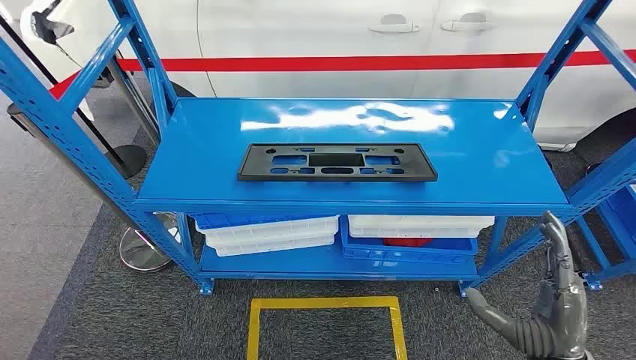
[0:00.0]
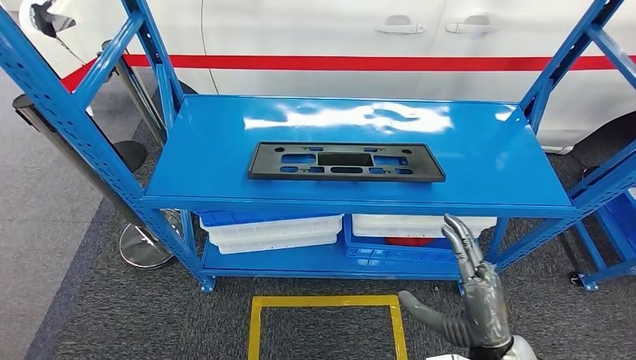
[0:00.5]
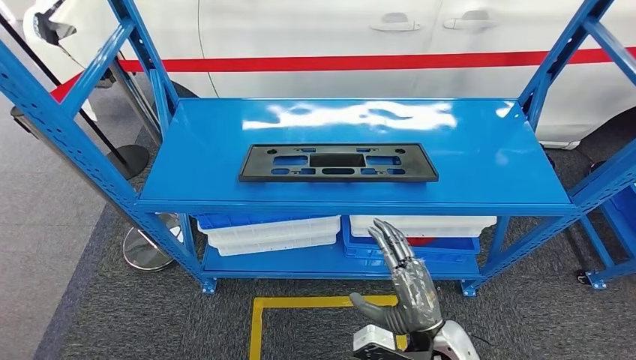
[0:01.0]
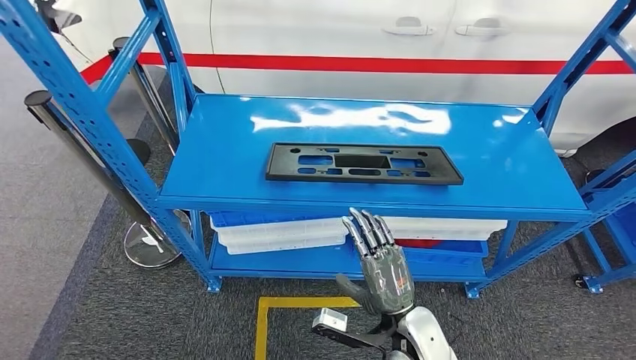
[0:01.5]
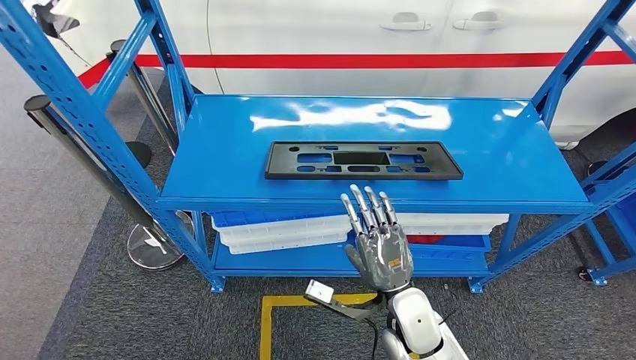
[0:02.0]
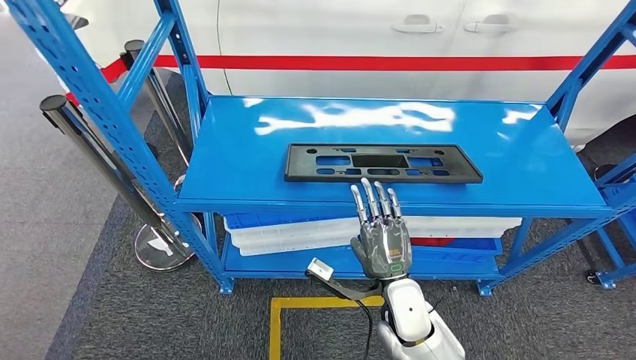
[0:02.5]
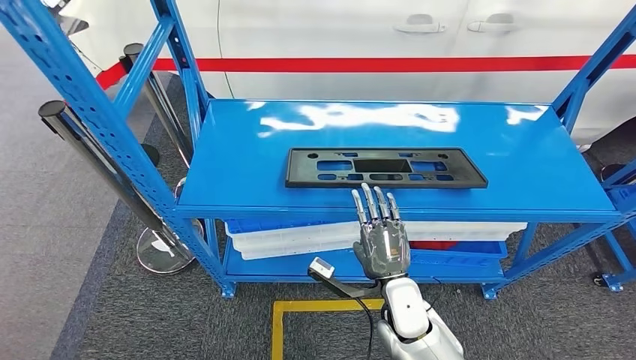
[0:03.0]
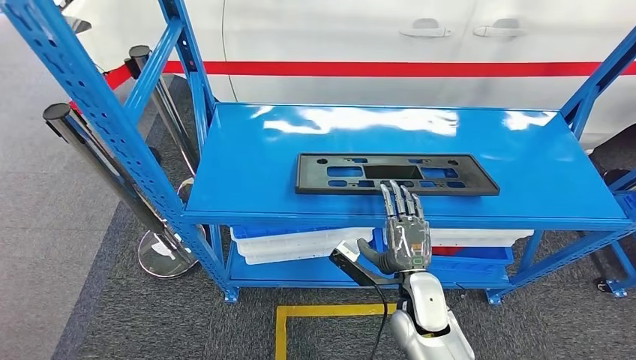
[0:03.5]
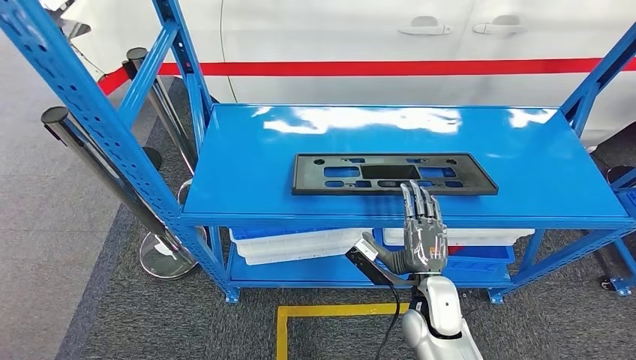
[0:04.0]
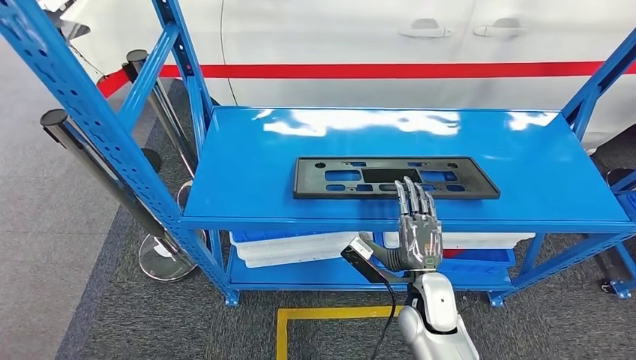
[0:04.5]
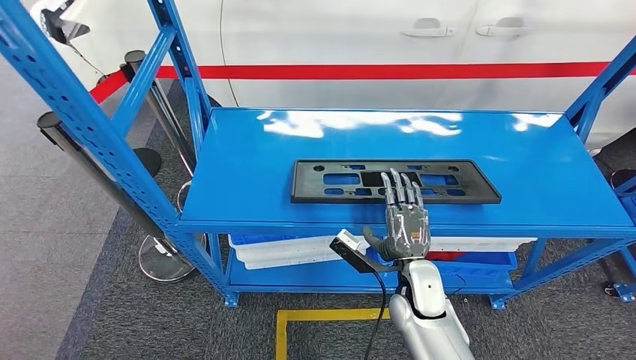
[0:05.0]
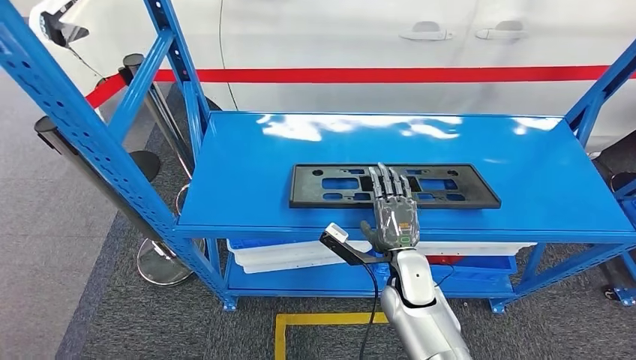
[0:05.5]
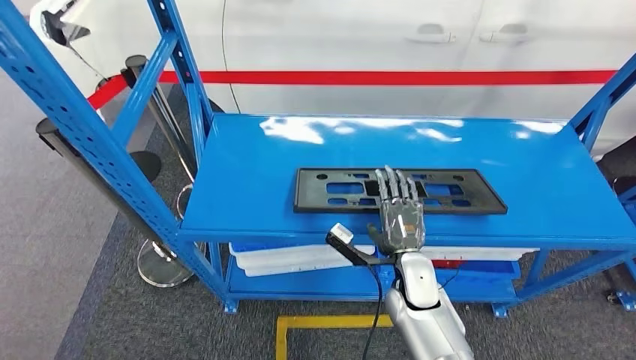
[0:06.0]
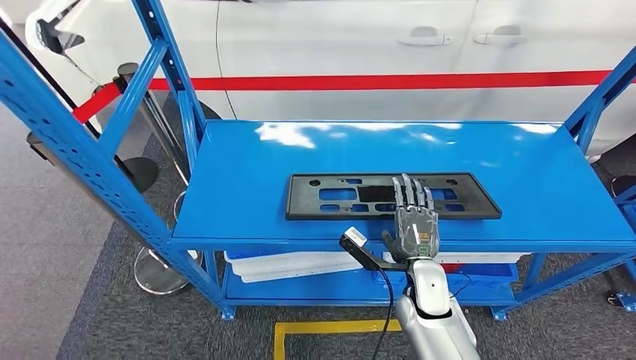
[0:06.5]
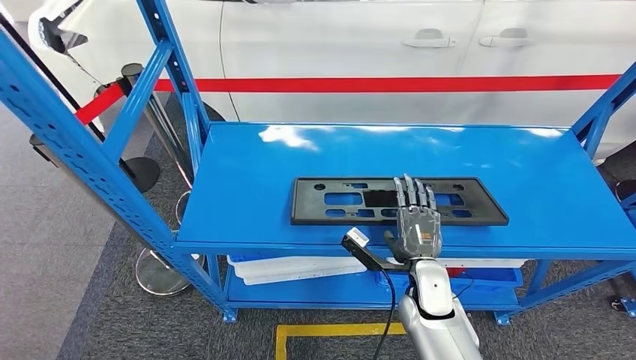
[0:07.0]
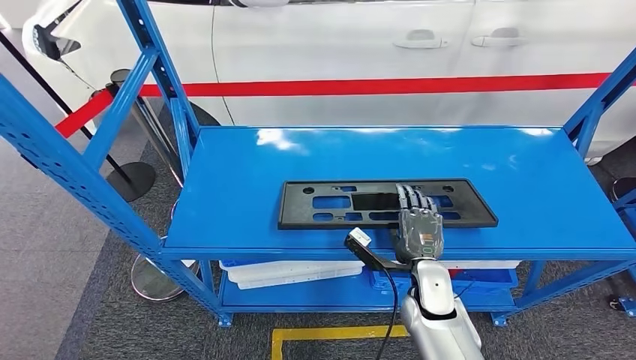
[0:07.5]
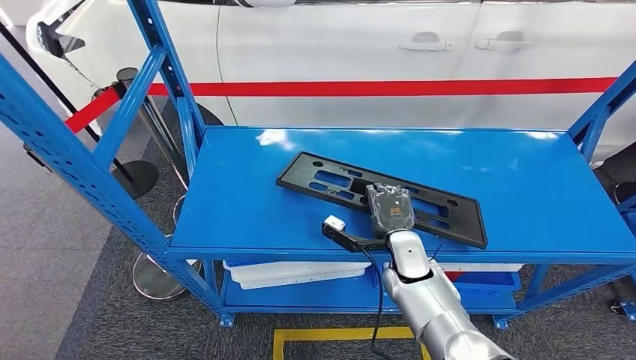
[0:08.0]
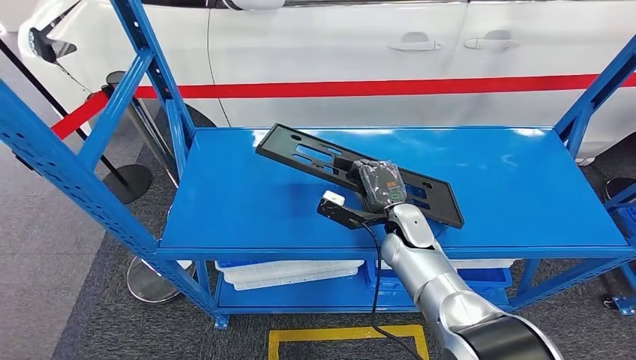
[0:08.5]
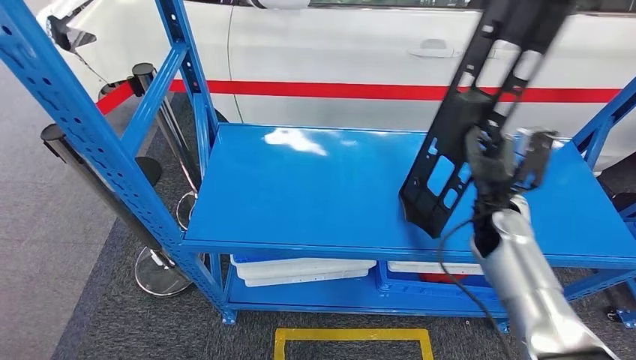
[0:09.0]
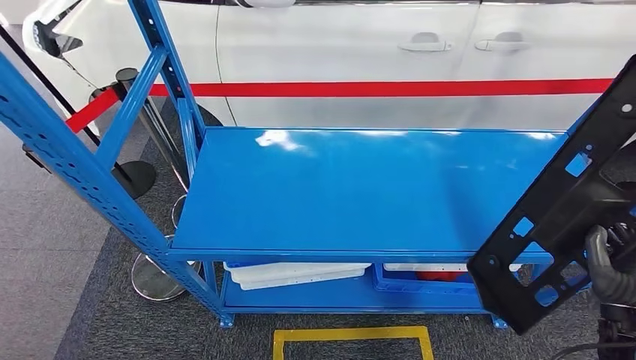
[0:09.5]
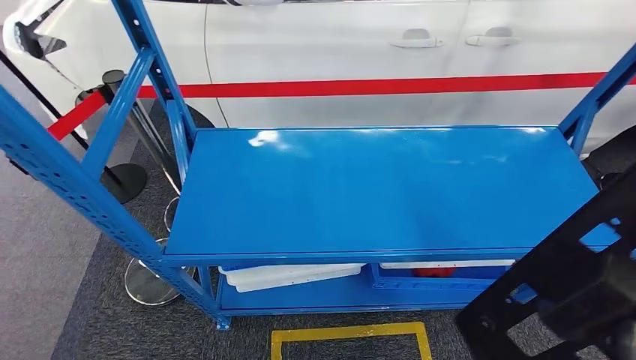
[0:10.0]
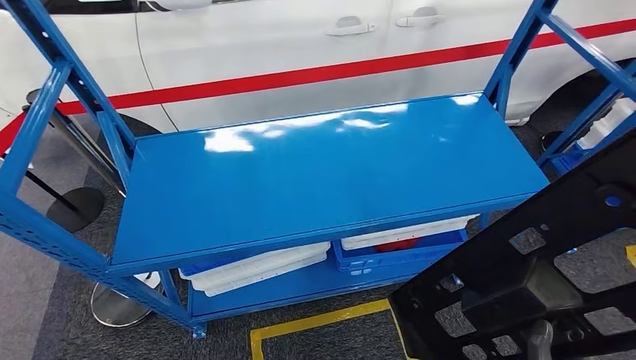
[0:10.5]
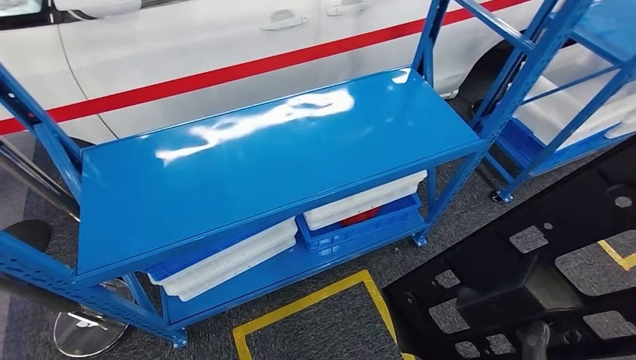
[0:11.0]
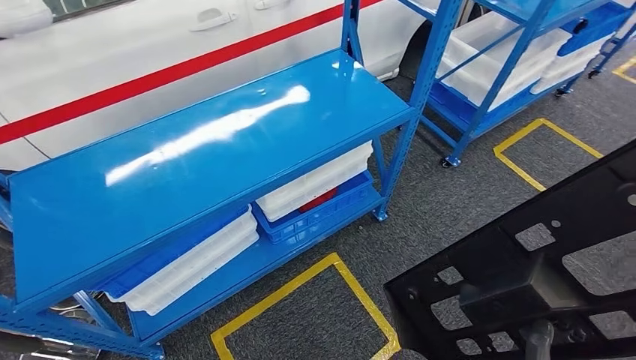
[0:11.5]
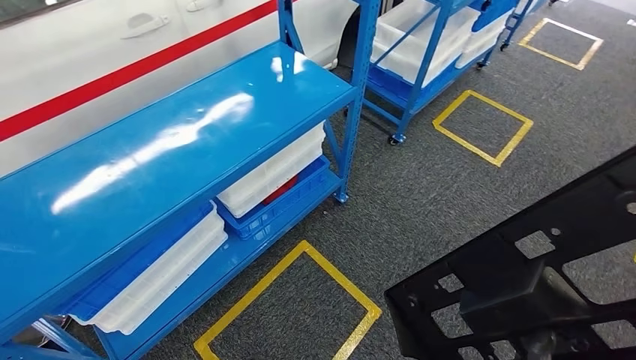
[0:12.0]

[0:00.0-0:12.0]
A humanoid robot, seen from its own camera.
Step, 0:00.0 to 0:10.0: Pick up the large material from the shelf.

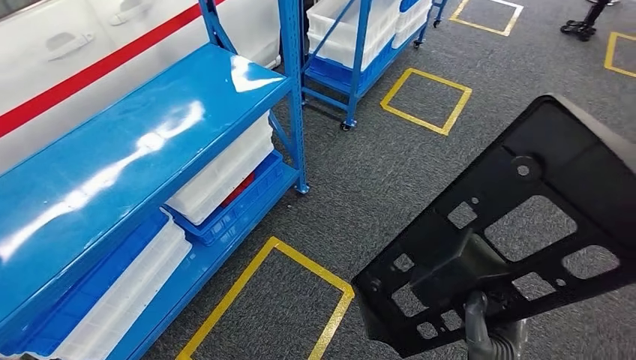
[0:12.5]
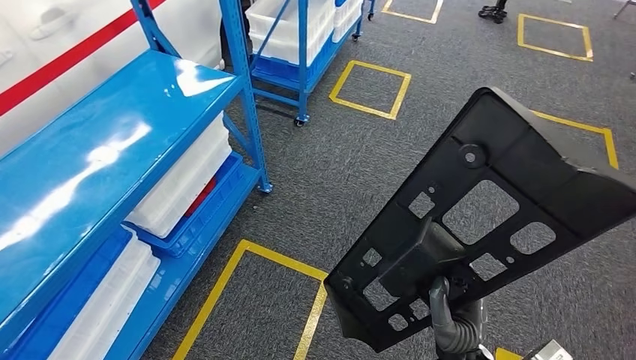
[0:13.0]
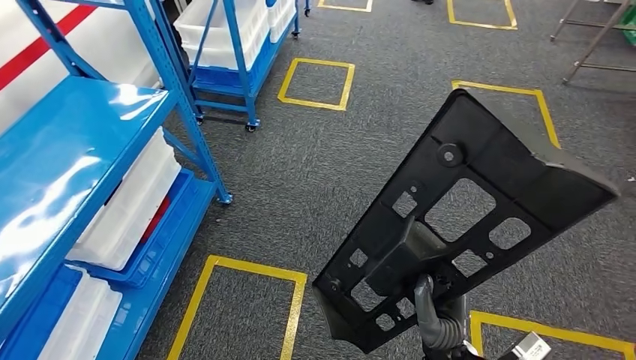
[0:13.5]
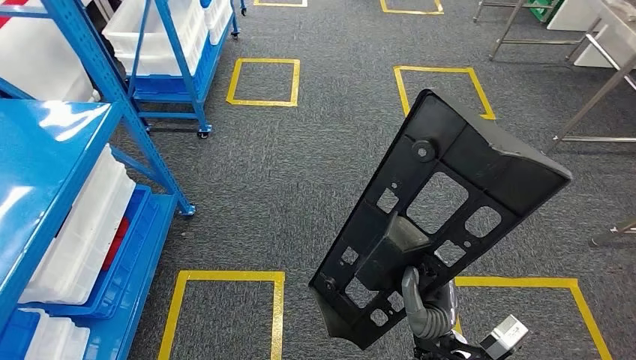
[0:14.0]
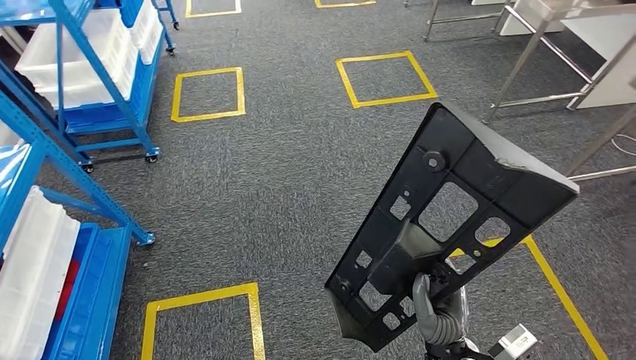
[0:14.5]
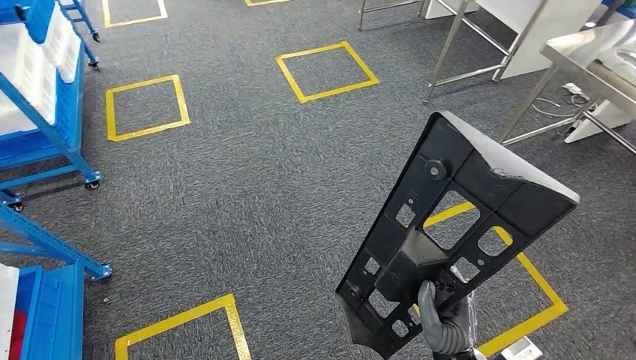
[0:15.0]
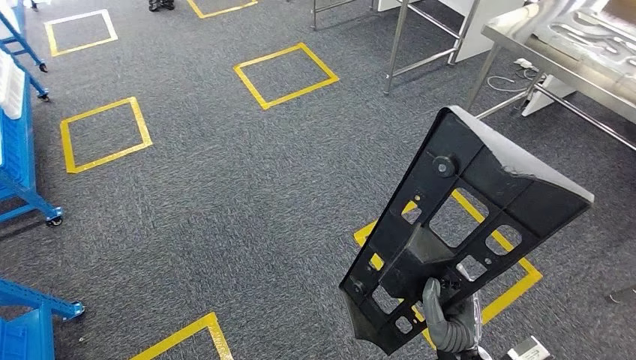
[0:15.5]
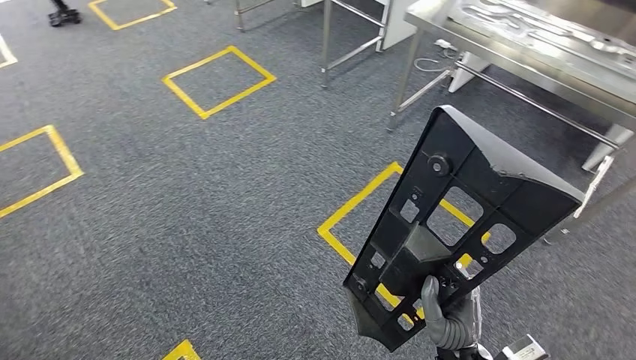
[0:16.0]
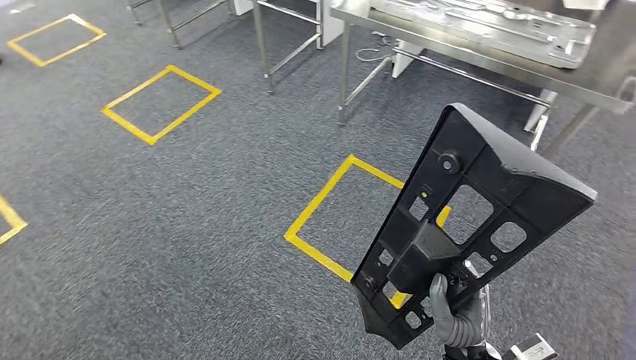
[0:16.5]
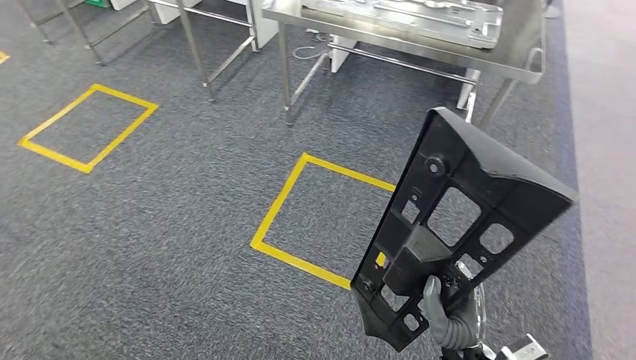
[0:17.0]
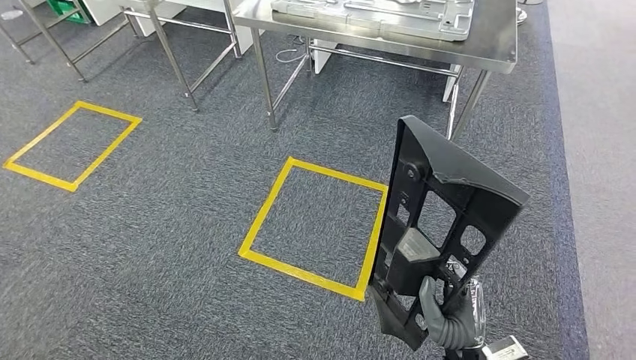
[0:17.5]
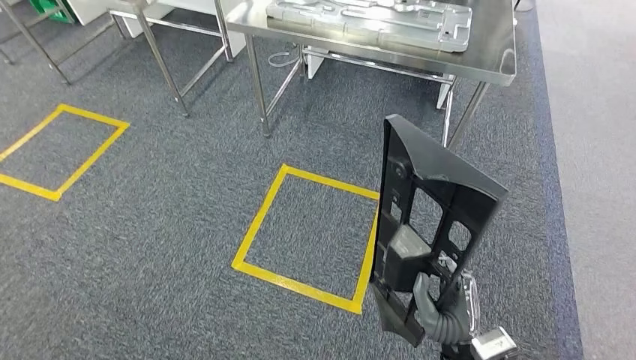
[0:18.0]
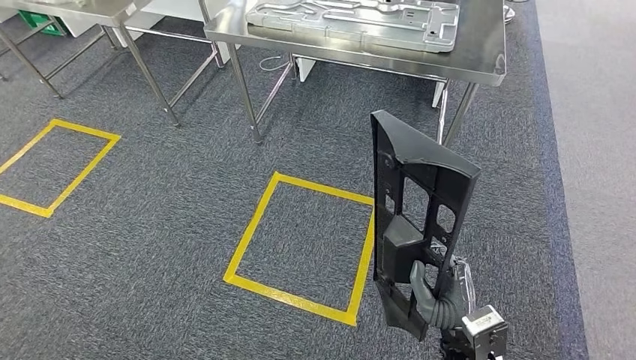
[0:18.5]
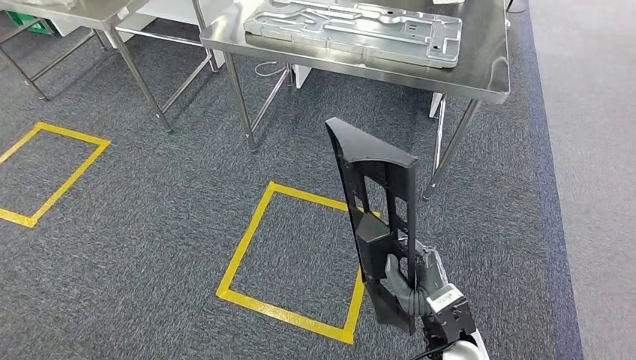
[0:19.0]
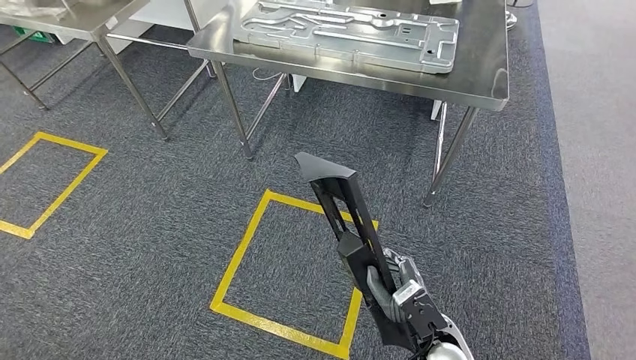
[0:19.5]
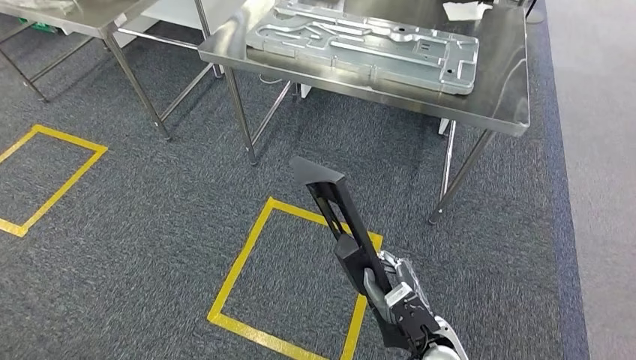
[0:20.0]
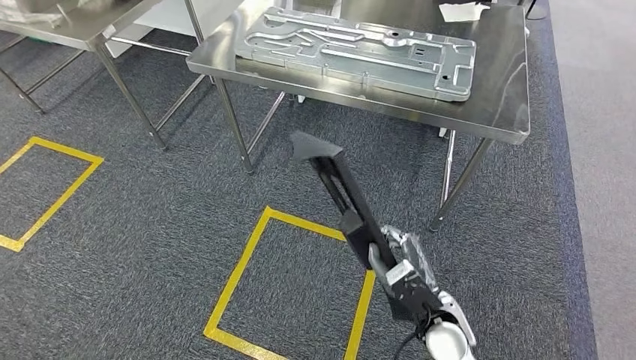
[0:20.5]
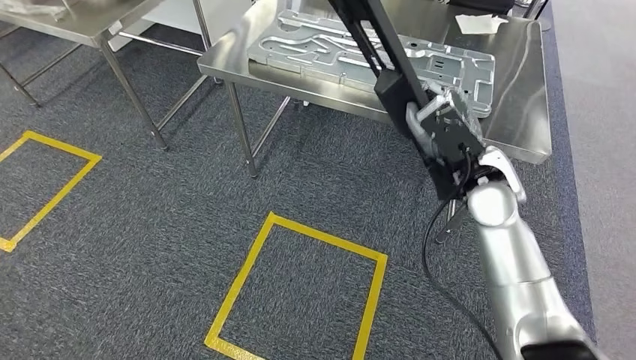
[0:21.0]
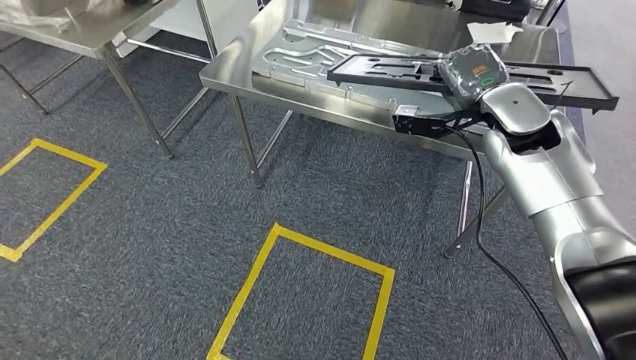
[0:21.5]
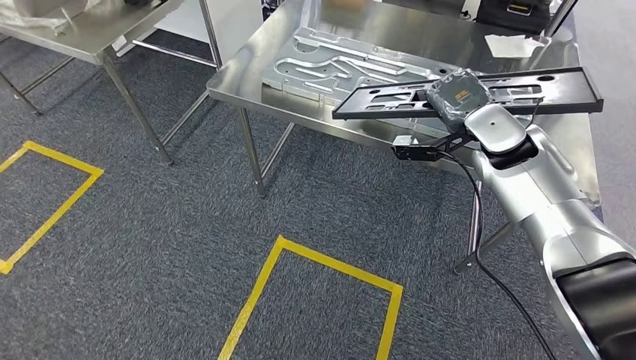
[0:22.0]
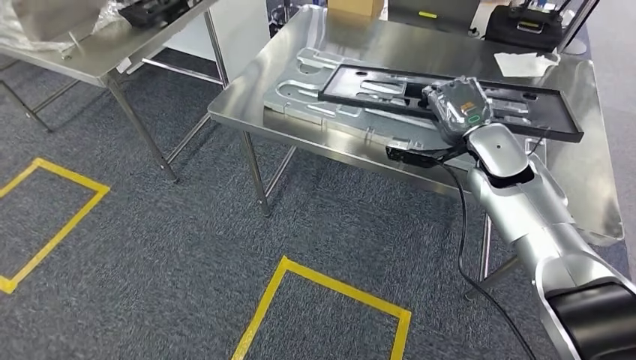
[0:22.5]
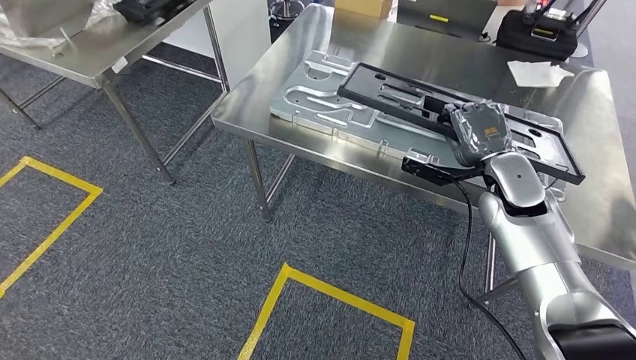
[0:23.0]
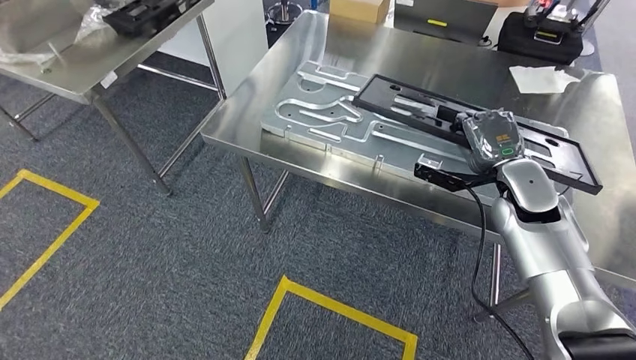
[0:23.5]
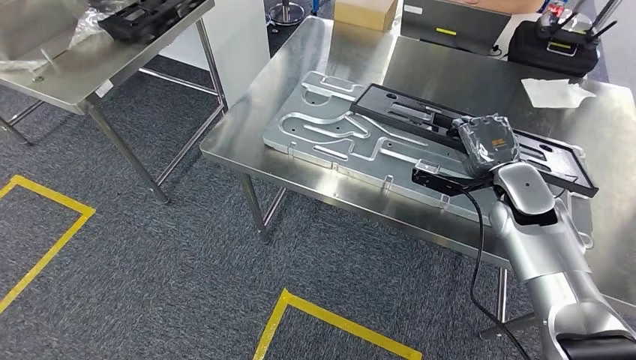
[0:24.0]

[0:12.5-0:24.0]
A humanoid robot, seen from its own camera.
Step, 0:12.5 to 0:22.0: Move the large material to the workbench.
